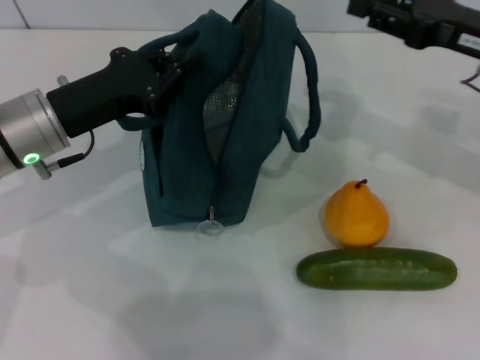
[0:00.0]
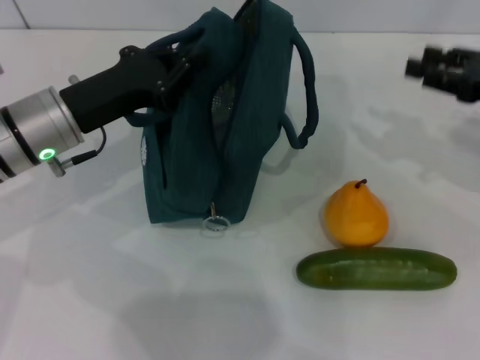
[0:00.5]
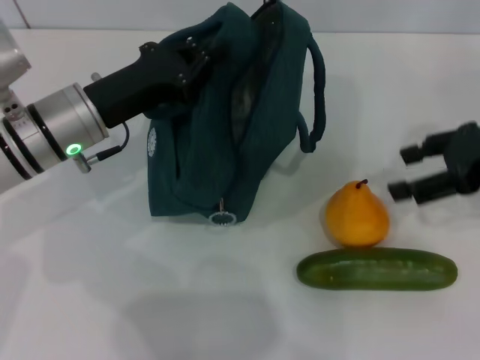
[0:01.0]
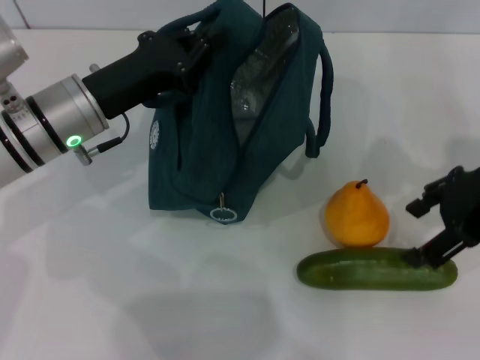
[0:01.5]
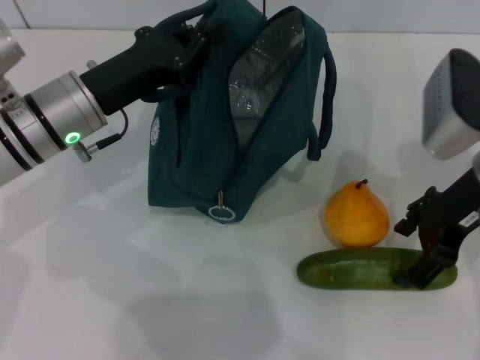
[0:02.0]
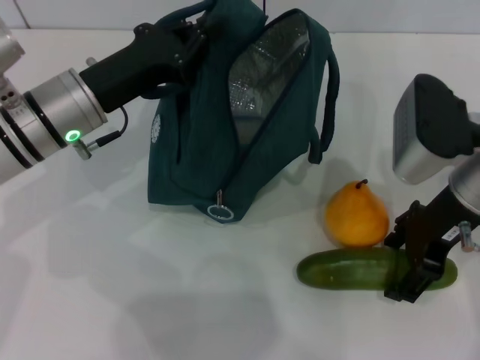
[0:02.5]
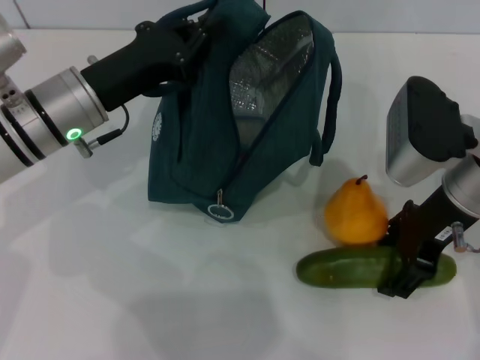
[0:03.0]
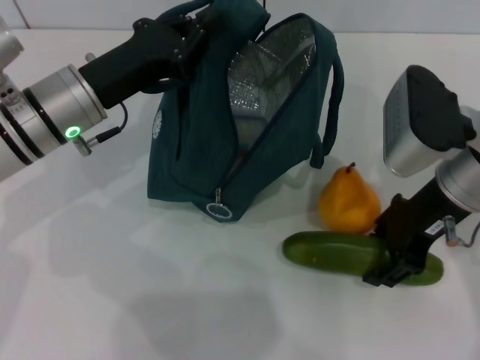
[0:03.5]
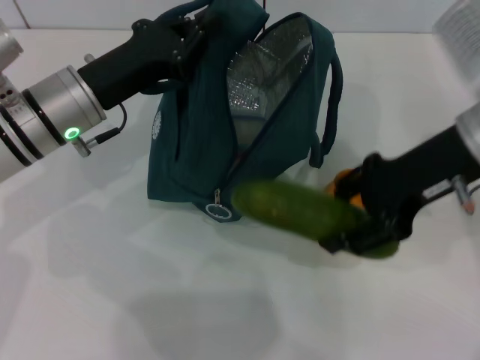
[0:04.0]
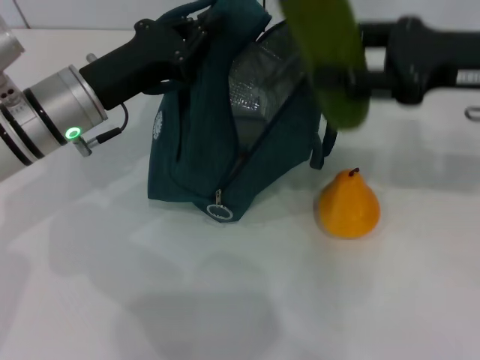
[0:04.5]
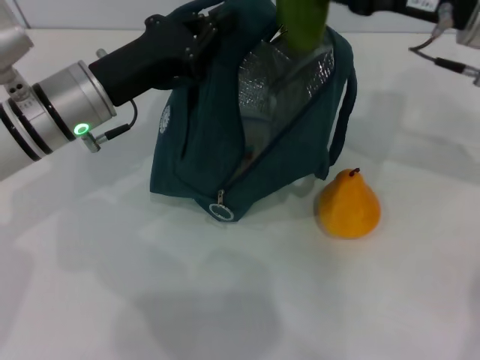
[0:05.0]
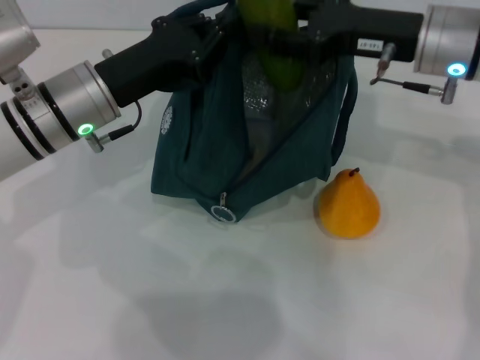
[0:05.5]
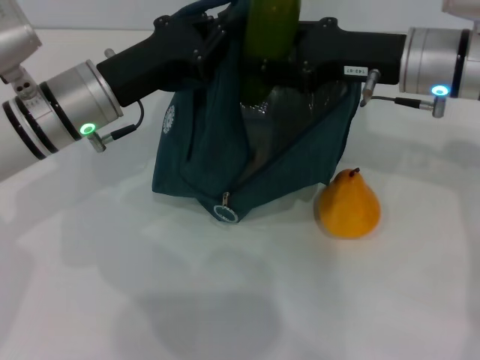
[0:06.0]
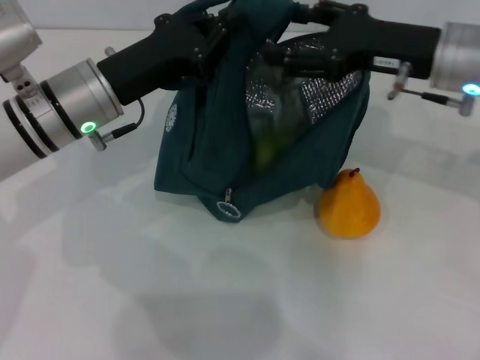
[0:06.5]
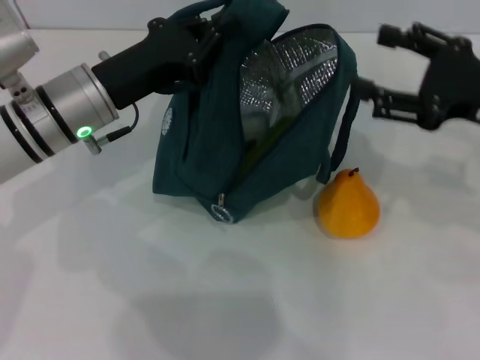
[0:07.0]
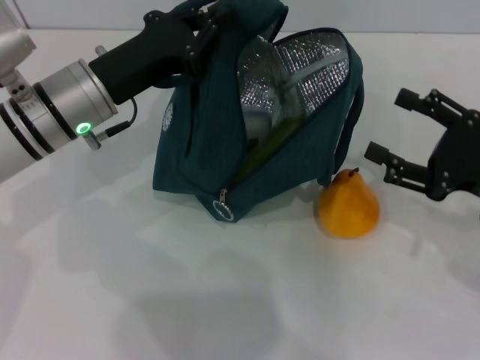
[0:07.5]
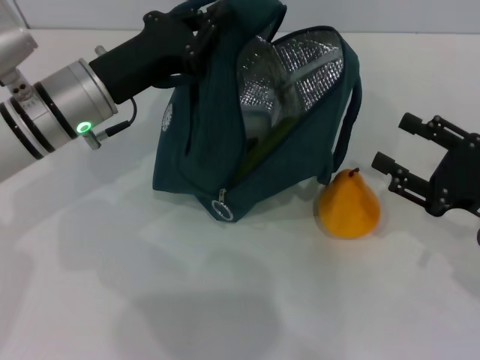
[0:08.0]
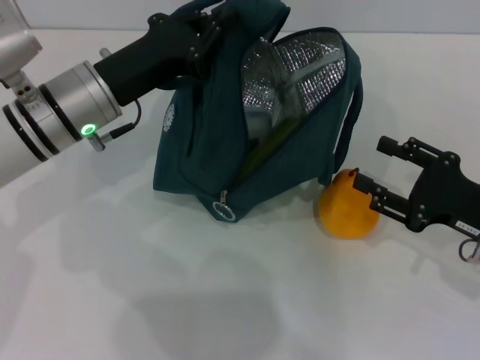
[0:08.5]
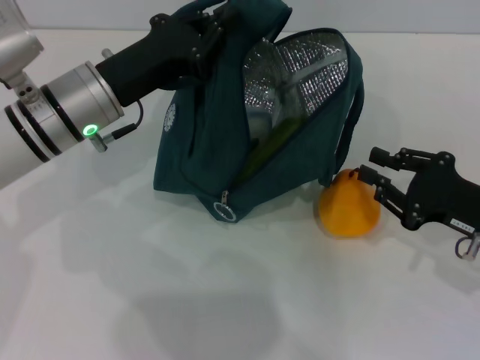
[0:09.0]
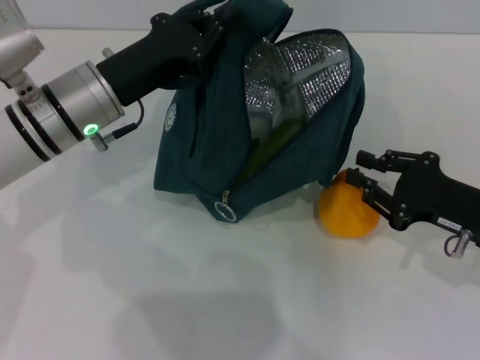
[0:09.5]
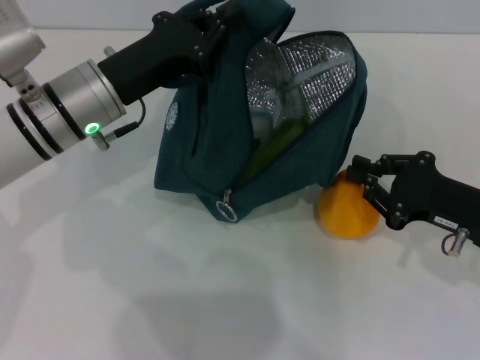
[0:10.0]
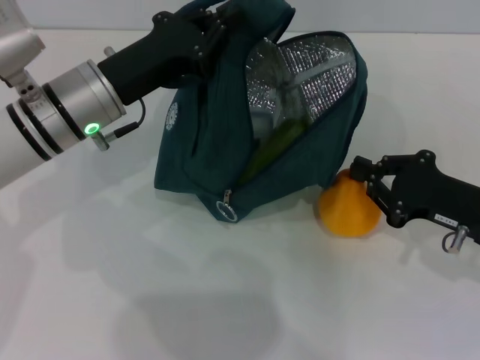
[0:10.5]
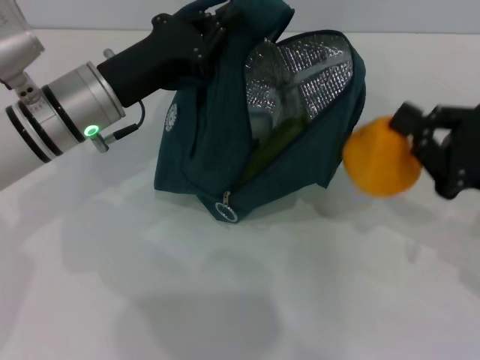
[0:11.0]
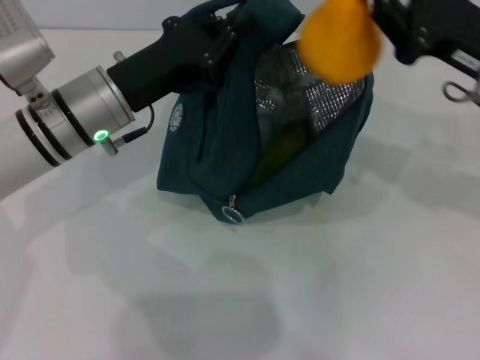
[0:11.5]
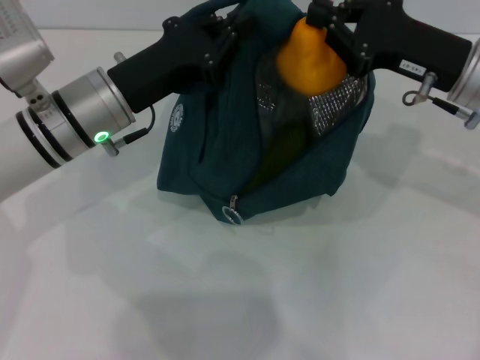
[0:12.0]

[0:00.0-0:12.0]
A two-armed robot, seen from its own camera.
Step, 0:00.0 to 0:03.5: Pick up the cucumber with your right hand.
Step, 0:04.0 to 0:06.0: Put the cucumber into the lunch bag with your right hand.
Step, 0:06.5 to 0:10.0: Grab the pear with your right hand.
0:00.0 to 0:02.0: The right gripper moves about 5 cm, and opens its fingers.
0:02.0 to 0:04.0: The right gripper closes up.
0:04.0 to 0:06.0: The right gripper shifts some 5 cm forward.
0:06.0 to 0:08.0: The right gripper goes roughly 20 cm backward, to the right and downward.
0:08.0 to 0:10.0: The right gripper closes up.
0:10.0 to 0:12.0: The right gripper moves upward, forward and to the left, roughly 15 cm.

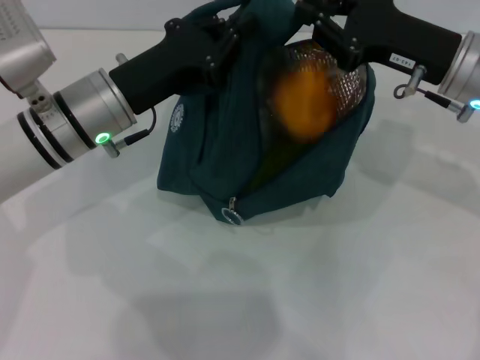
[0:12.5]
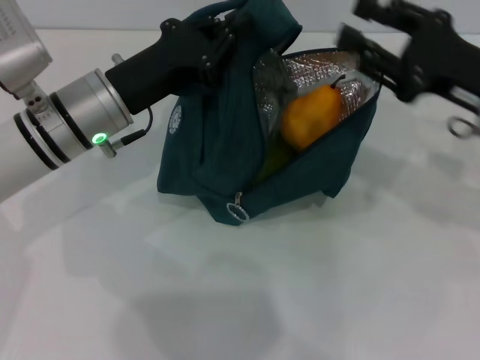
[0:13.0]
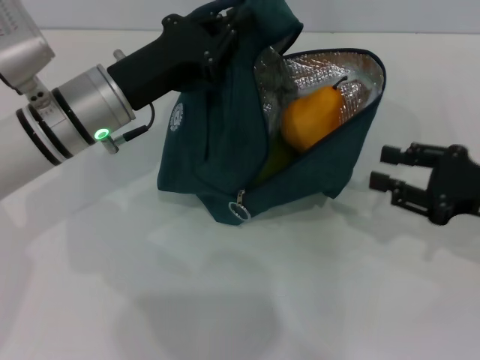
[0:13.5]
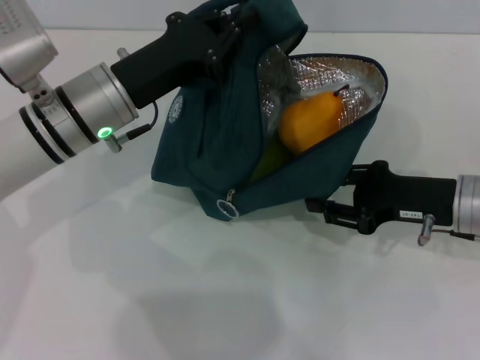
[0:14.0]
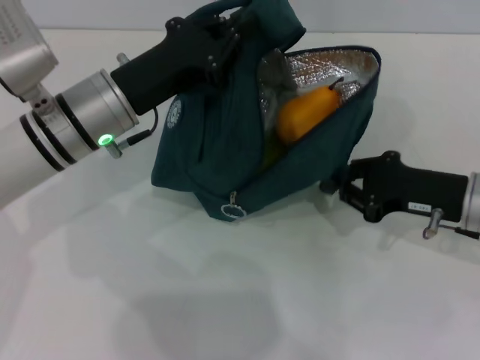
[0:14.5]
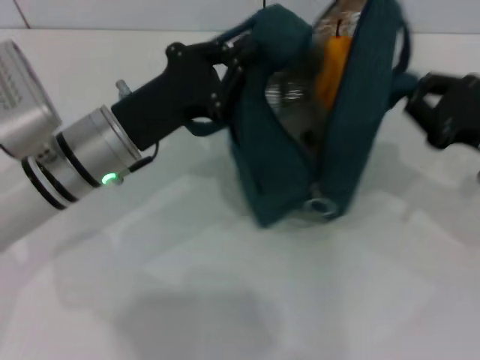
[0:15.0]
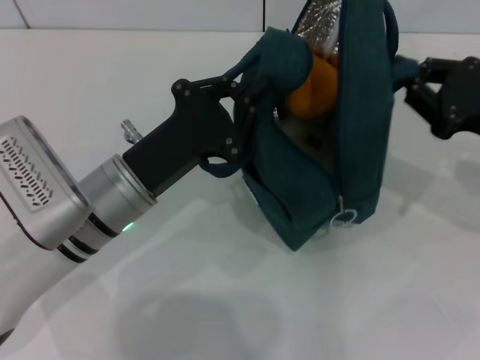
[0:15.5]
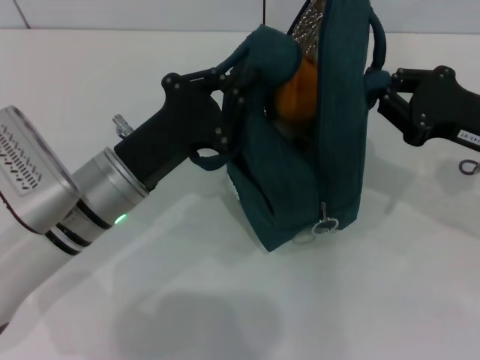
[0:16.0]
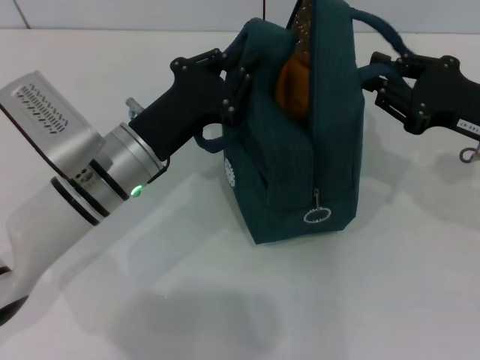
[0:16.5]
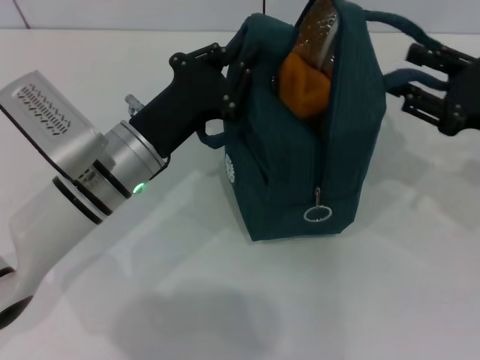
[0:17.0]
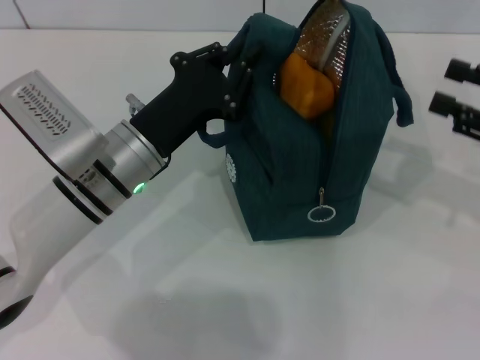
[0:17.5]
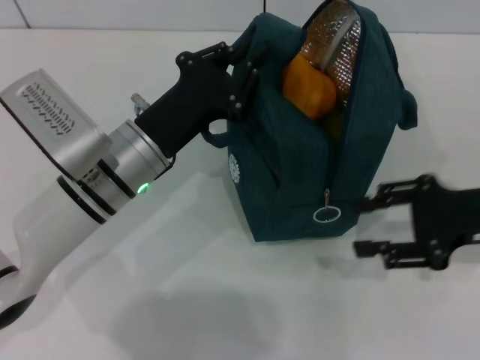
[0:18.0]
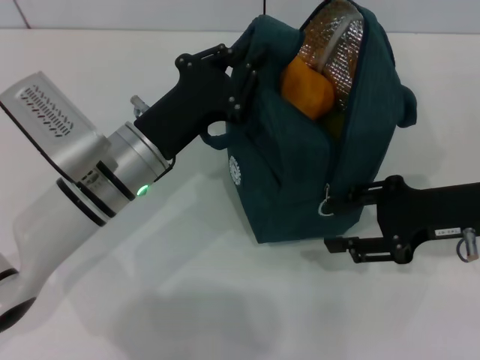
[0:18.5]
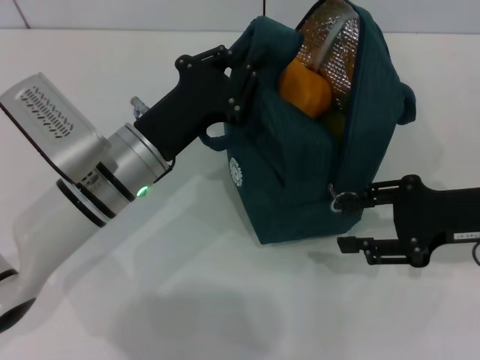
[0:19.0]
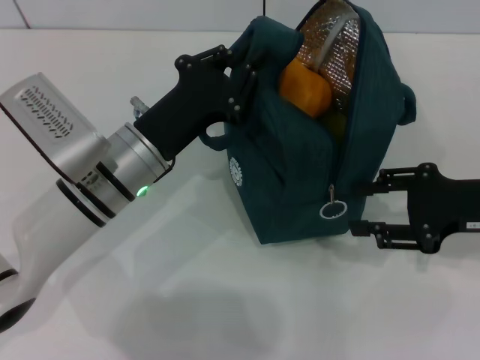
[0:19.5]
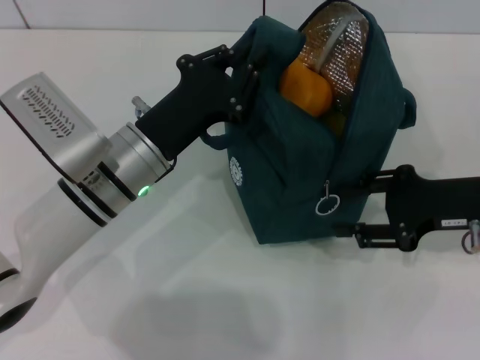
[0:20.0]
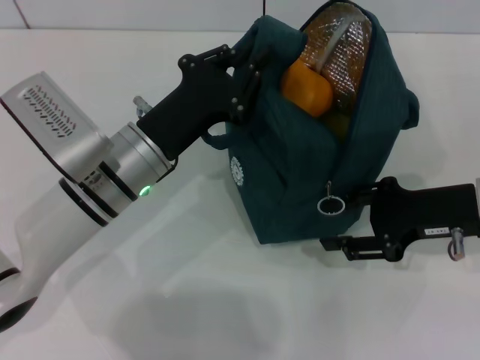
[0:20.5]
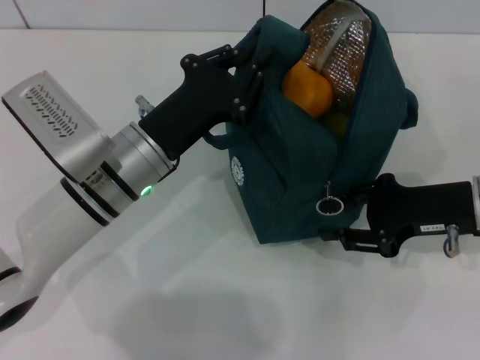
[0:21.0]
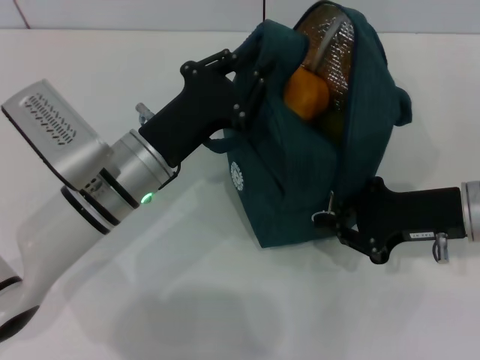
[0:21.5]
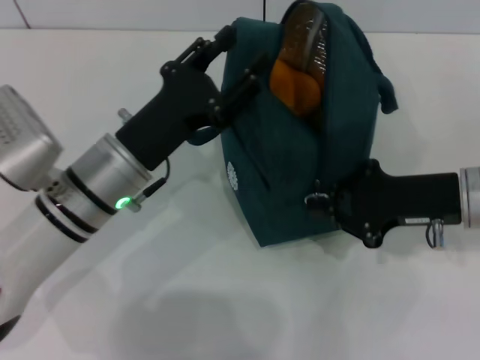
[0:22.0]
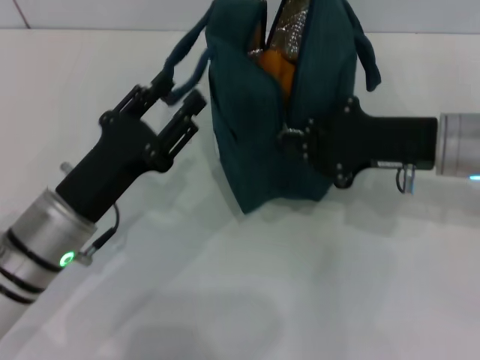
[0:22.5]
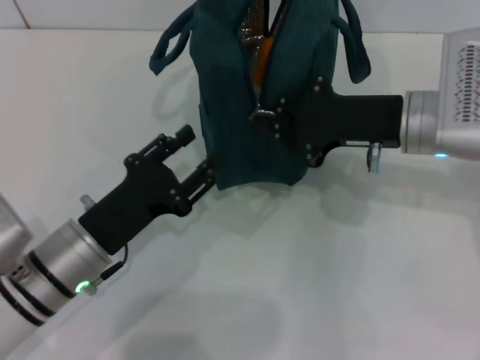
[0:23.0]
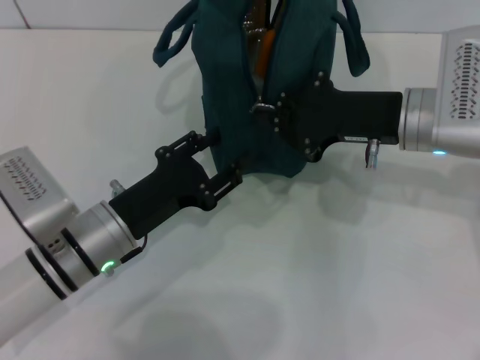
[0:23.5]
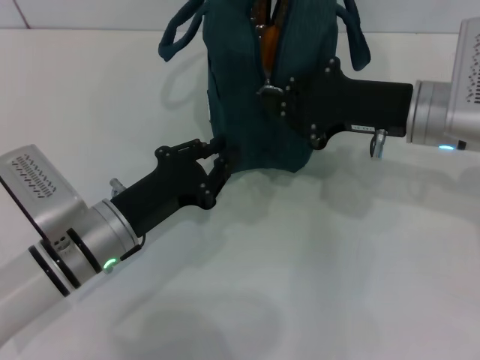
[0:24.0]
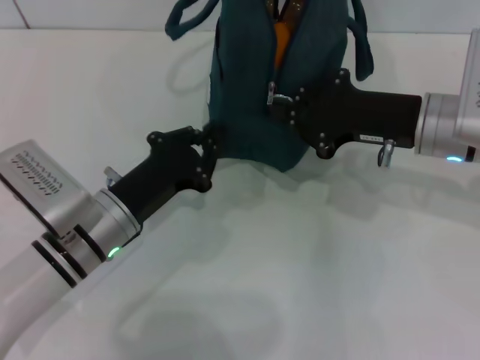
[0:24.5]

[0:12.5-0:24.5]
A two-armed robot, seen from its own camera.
Step, 0:13.0 to 0:17.0: Hold the lunch bag with your right hand.
0:12.5 to 0:14.5: The right gripper is displaced downward and backward by approximately 10 cm.
0:14.5 to 0:16.5: The left gripper changes place by some 5 cm. The right gripper travels upward by approximately 5 cm.
0:16.5 to 0:18.5: The right gripper moves roughly 5 cm to the right and comes back, and opens its fingers.
0:18.5 to 0:20.5: There are only small adjustments of the grippers.
0:20.5 to 0:22.5: The left gripper is displaced backward and to the left by about 10 cm, and opens its fingers. Meanwhile the right gripper moves about 5 cm, and closes its fingers.
0:22.5 to 0:24.5: The left gripper closes up.

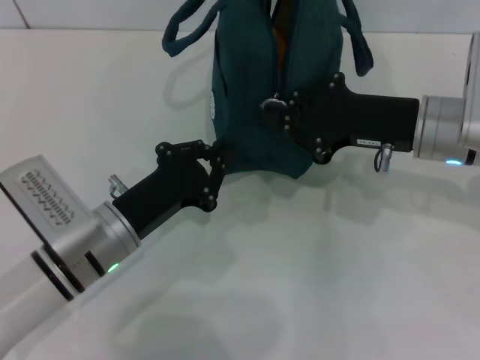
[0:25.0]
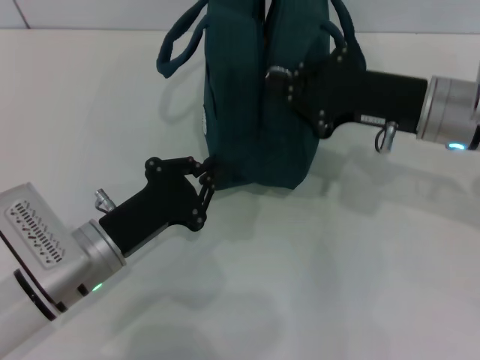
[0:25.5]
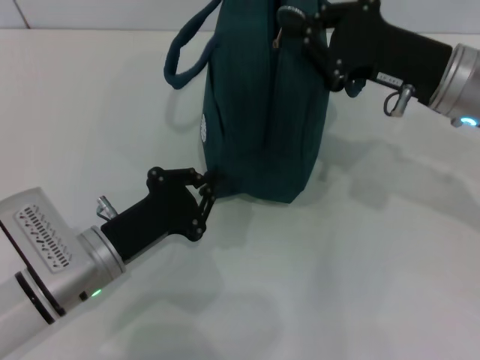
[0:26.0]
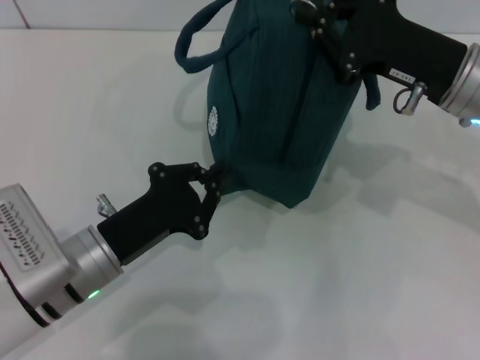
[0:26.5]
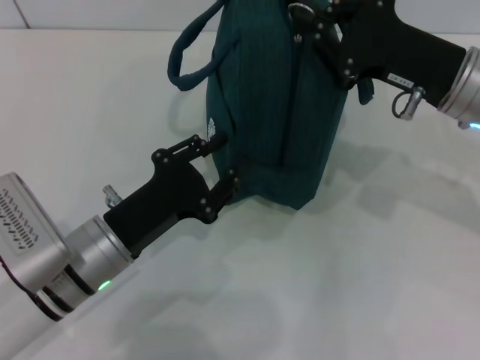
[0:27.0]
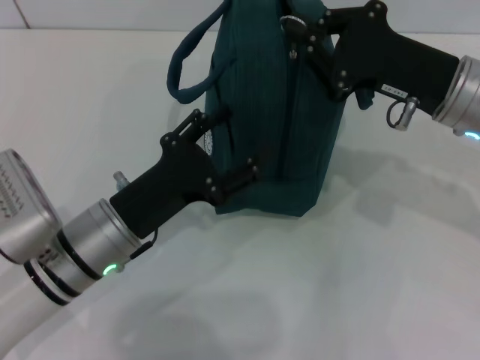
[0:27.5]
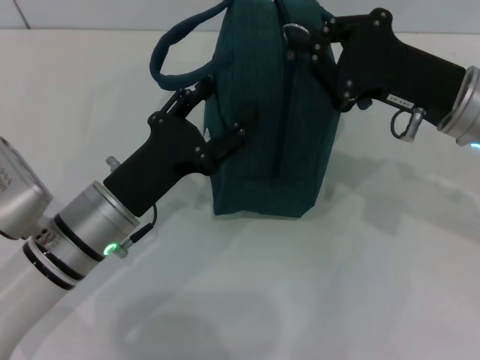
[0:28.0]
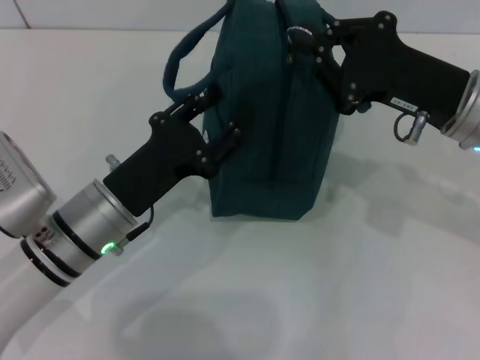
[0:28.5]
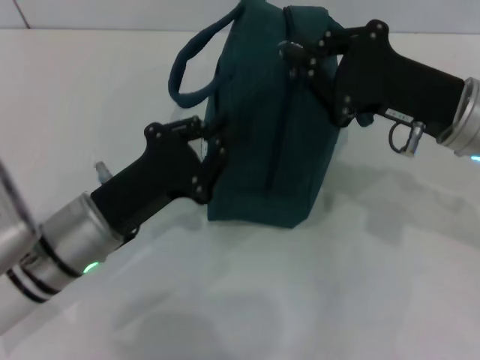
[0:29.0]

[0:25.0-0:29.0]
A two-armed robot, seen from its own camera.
0:27.0 to 0:29.0: The left gripper opens, then closes once more.
